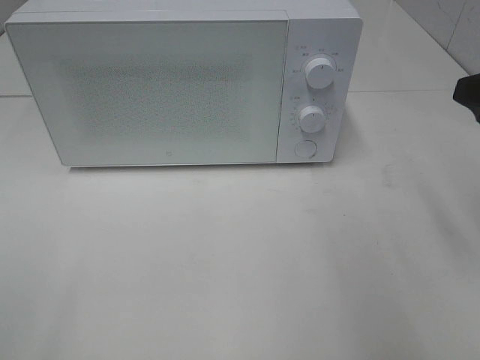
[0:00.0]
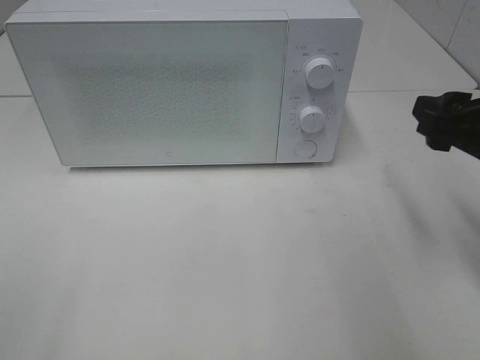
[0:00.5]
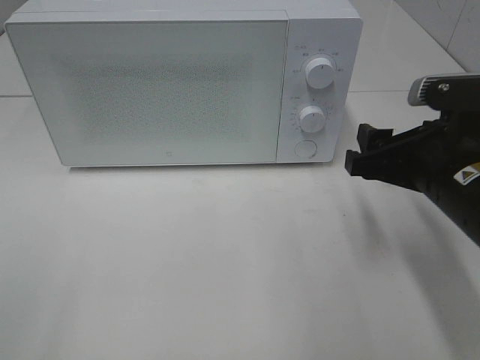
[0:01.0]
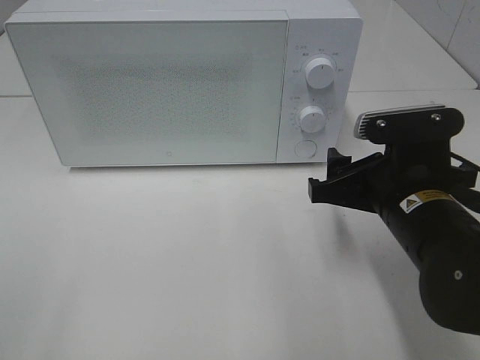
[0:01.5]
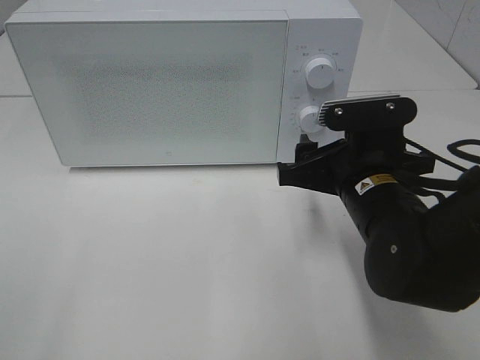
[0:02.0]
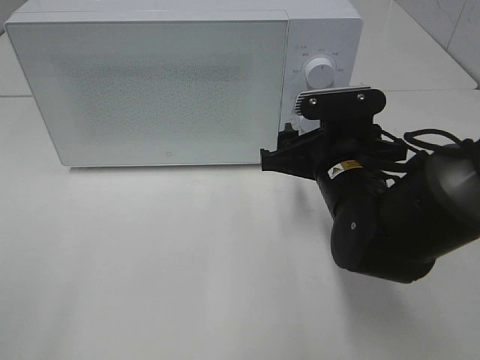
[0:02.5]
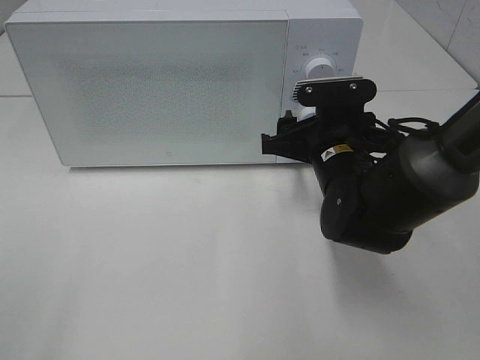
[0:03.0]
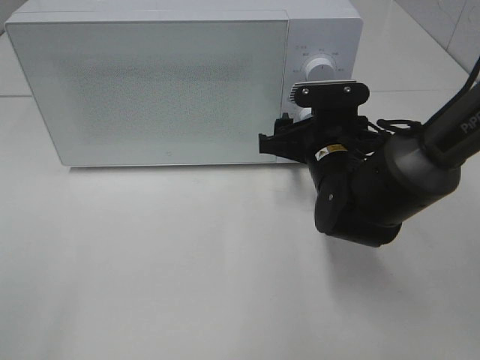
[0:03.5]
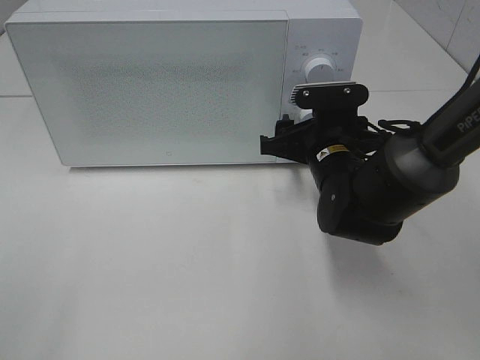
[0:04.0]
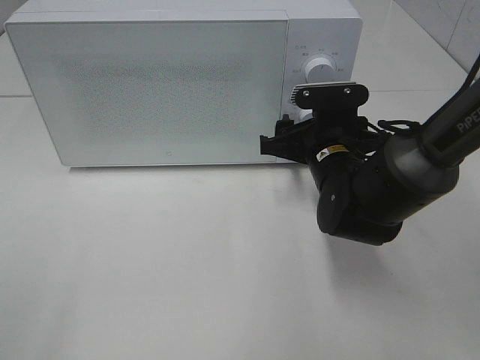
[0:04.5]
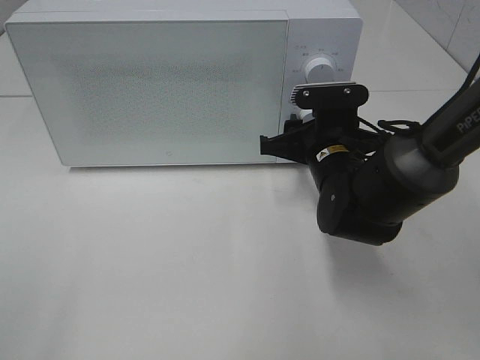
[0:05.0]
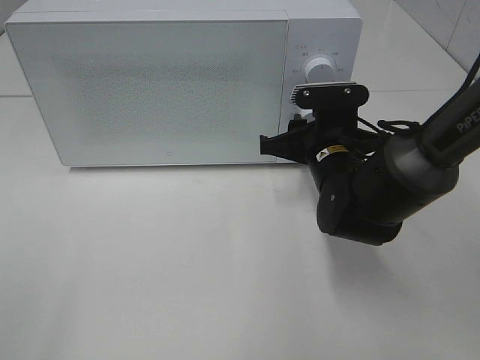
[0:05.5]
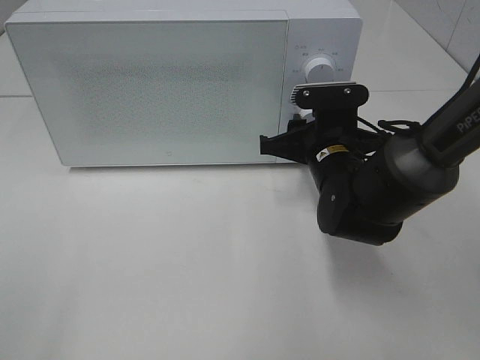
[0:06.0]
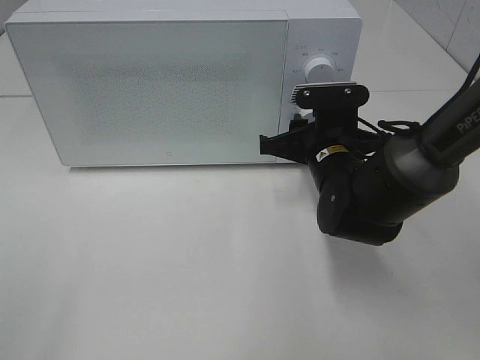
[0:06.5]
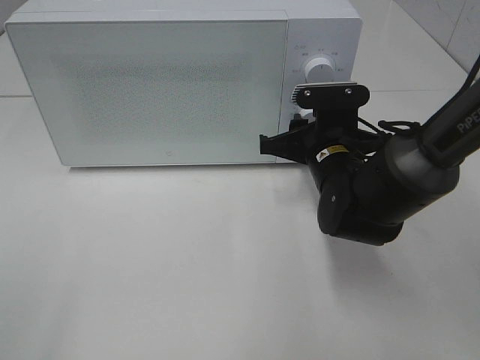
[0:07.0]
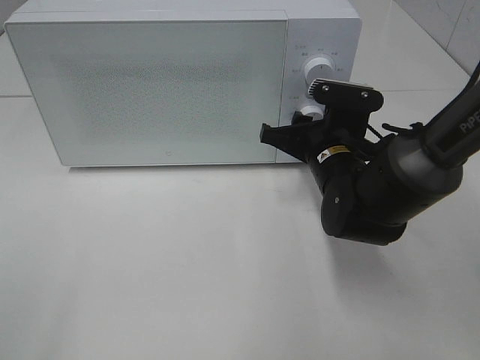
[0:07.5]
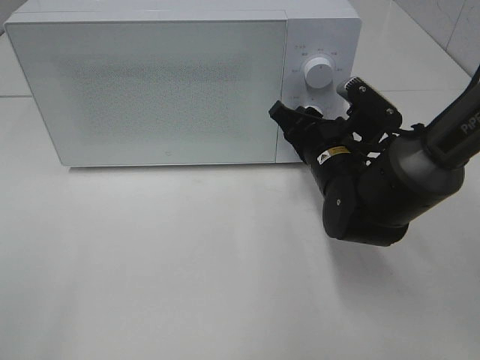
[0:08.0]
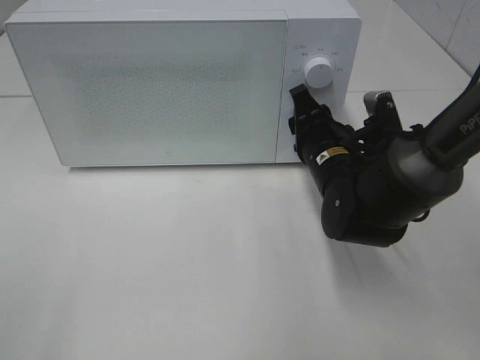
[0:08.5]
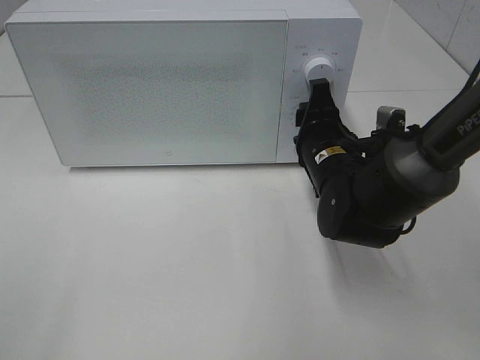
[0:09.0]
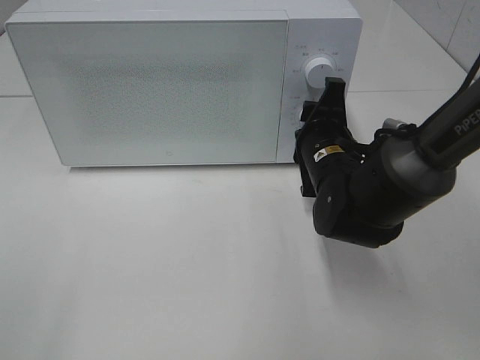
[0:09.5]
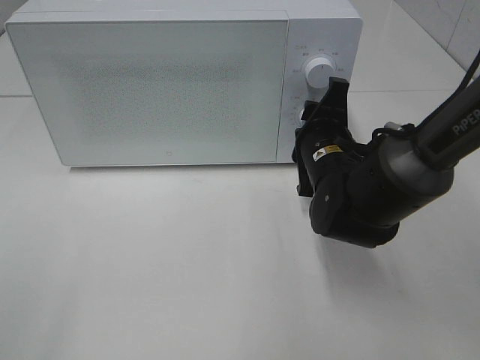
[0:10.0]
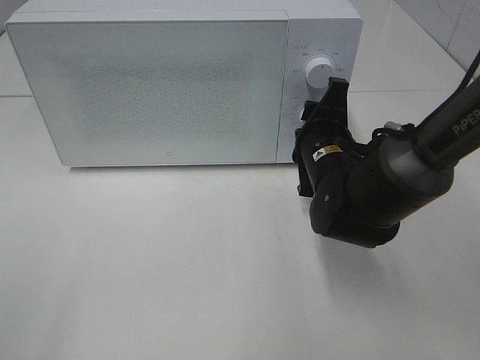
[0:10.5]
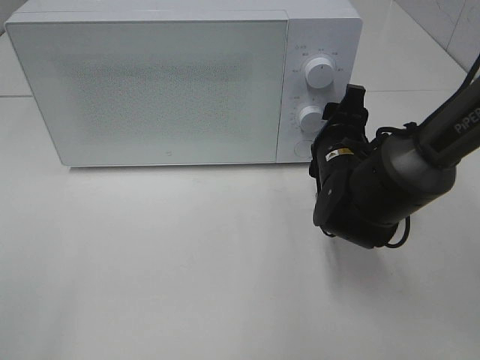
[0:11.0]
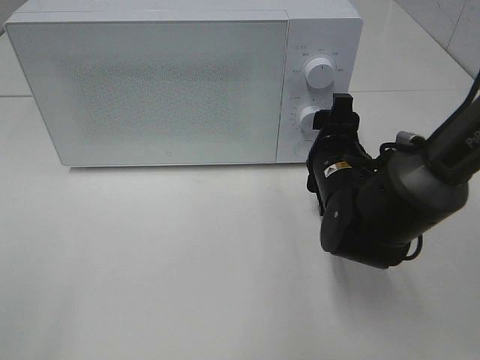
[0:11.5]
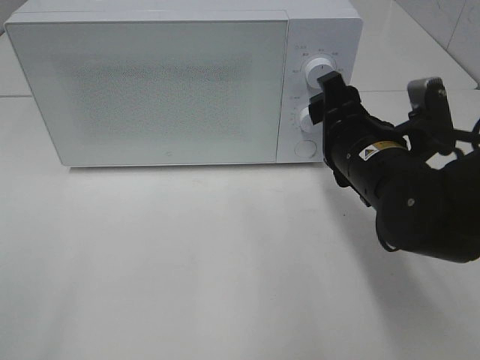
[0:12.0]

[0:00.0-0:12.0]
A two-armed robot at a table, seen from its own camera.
Task of the whole recording: Heat the burger.
Step, 0:00.0 to 0:10.5: Right hand: twist timer button.
0:00.0 to 0:02.0: The right gripper shifts roughly 20 cm to the left and downward.
0:02.0 to 0:04.0: The right gripper shifts about 10 cm forward.
0:04.0 to 0:06.0: Neither gripper changes place.
0:10.0 to 0:12.0: The right gripper heads backward, covering approximately 5 cm.

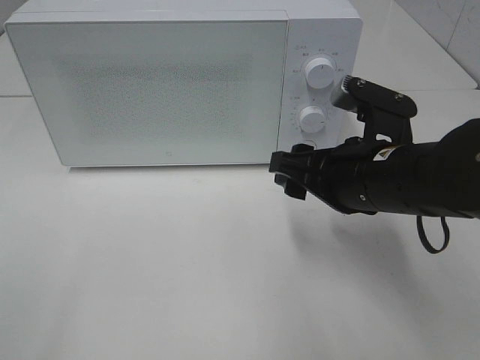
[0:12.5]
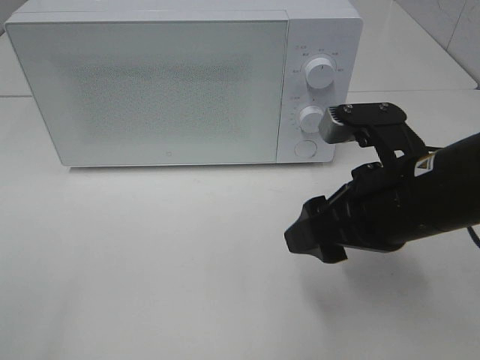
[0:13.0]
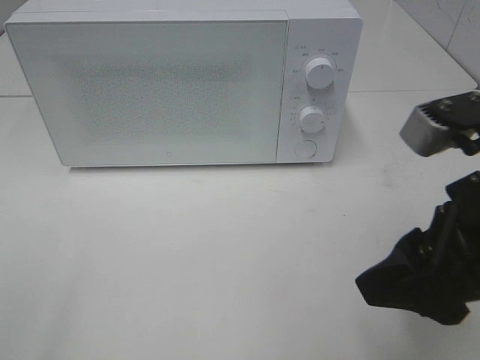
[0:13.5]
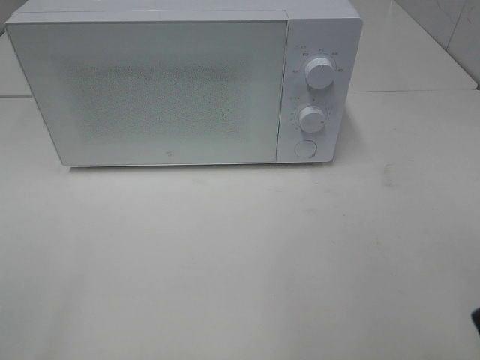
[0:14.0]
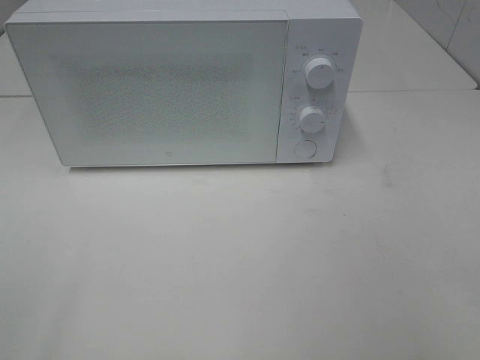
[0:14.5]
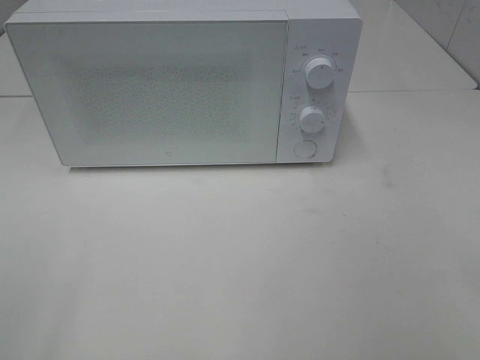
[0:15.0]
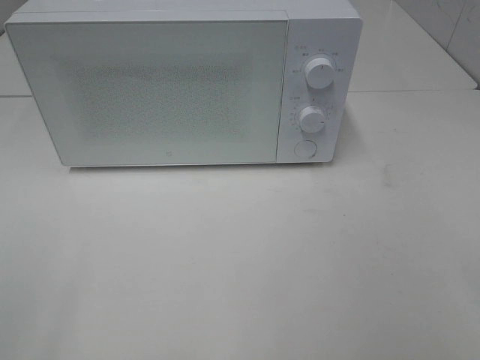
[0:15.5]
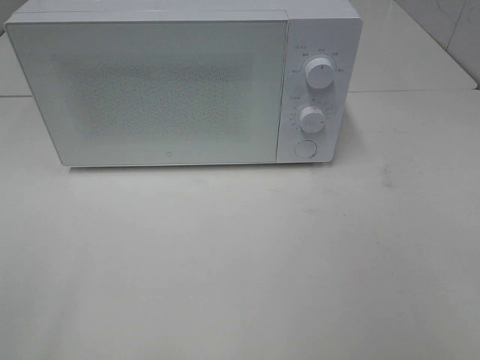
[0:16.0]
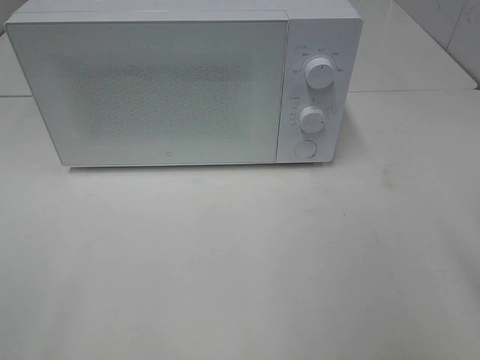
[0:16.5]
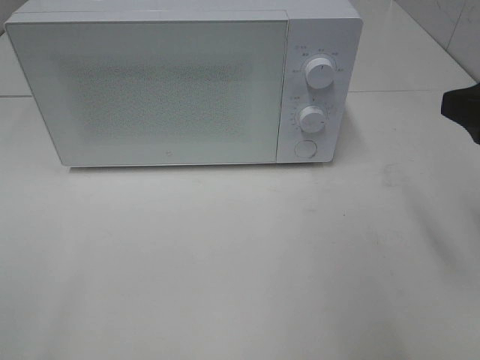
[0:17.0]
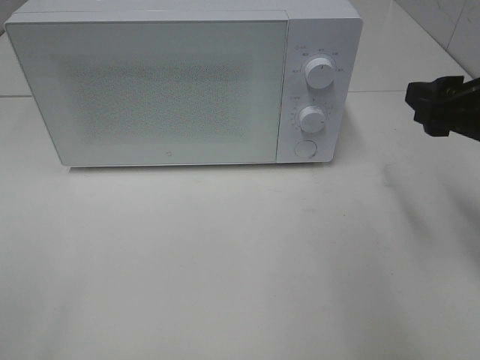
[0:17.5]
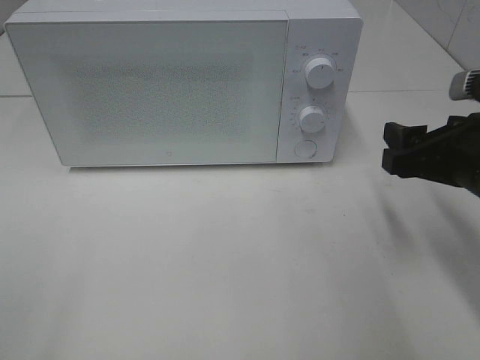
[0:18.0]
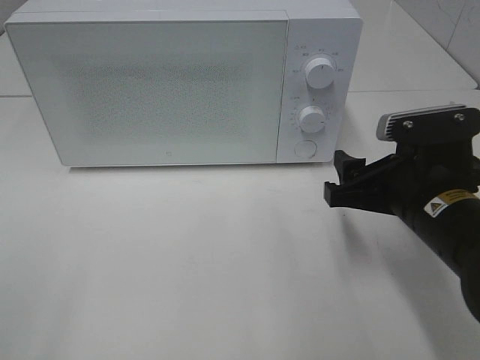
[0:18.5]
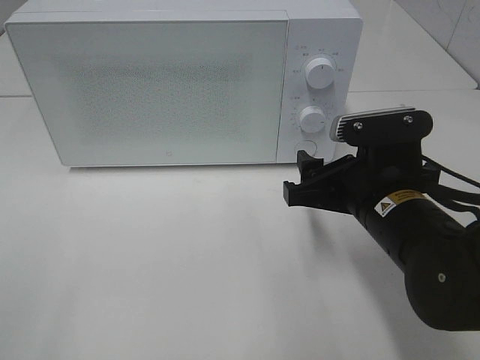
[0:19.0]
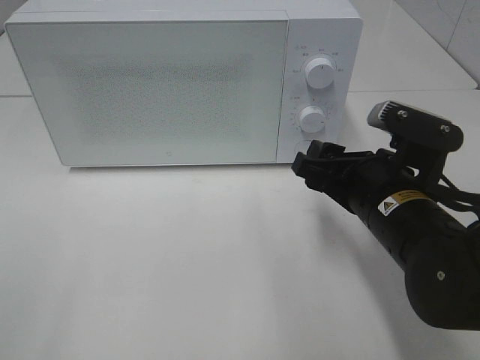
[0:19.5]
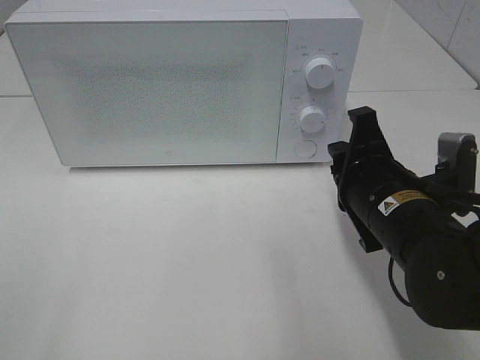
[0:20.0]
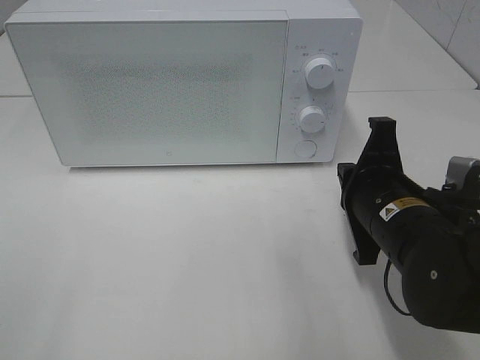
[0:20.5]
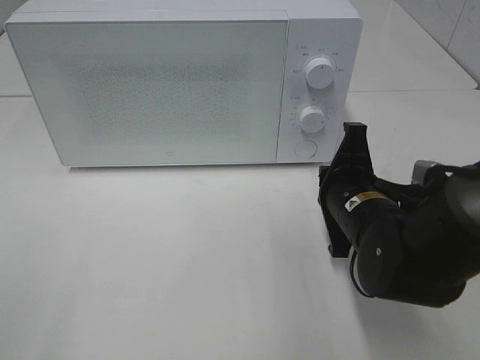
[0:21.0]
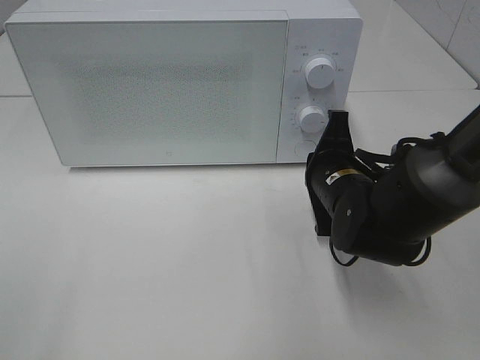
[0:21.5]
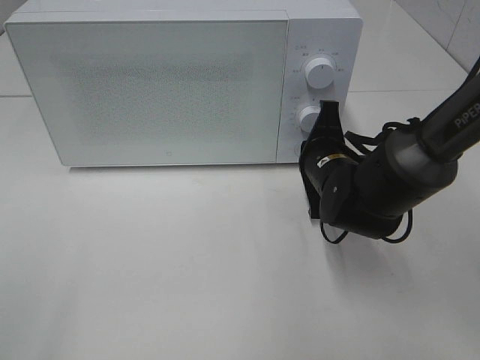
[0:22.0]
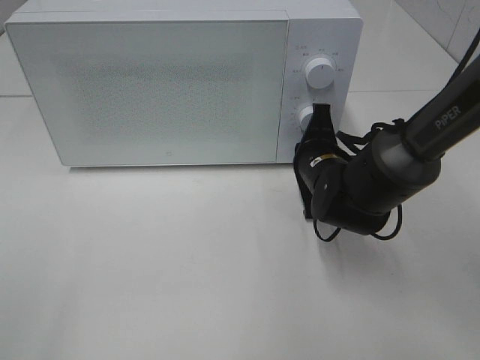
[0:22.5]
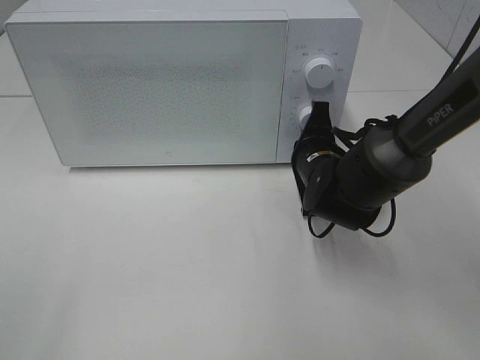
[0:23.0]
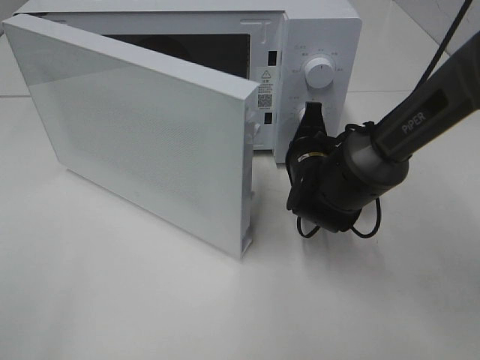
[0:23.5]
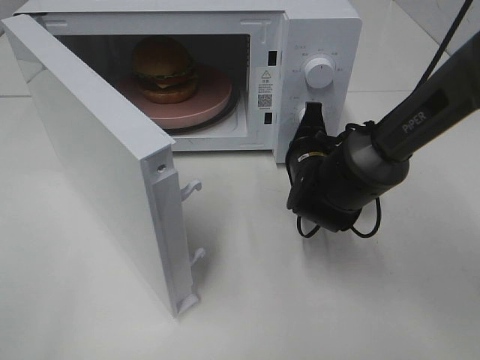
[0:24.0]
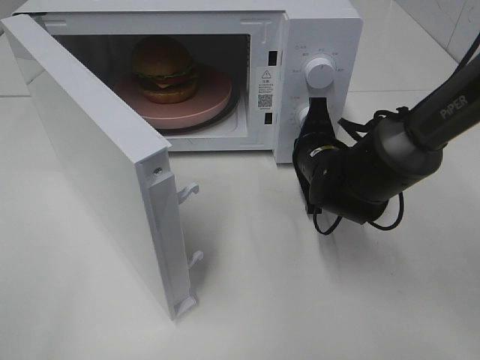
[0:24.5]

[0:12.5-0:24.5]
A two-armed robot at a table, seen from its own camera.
Task of the whole recording: Heat the burger.
0:12.5 to 0:14.5: The right gripper is displaced backward, to the right and upward by some 30 cm.
0:16.5 to 0:18.5: The right gripper goes some 20 cm downward, forward and to the left.
0:18.5 to 0:20.5: The right gripper closes its fingers.
0:20.5 to 0:22.5: The right gripper shifts some 10 cm forward.

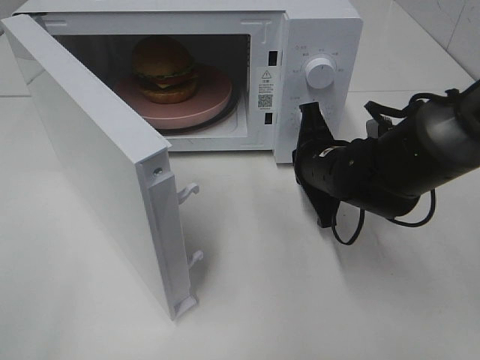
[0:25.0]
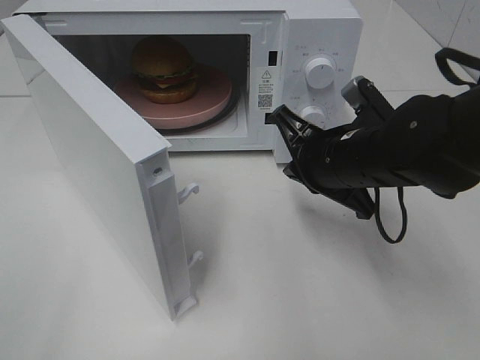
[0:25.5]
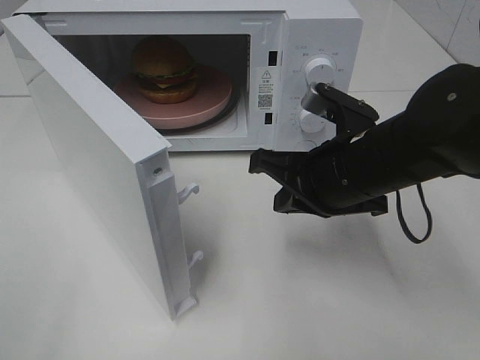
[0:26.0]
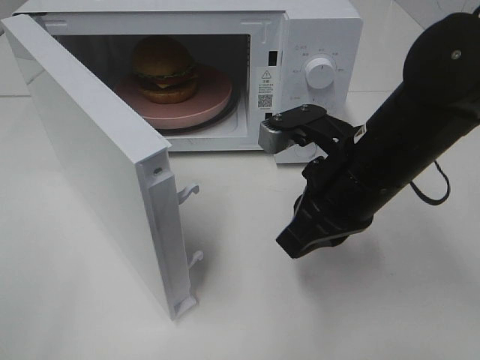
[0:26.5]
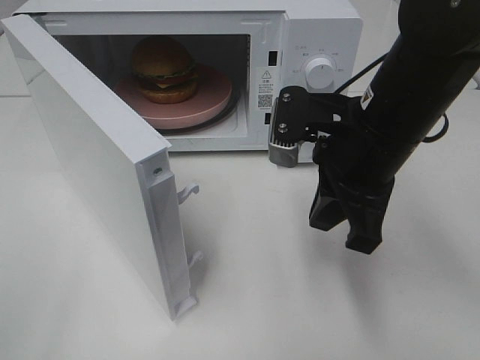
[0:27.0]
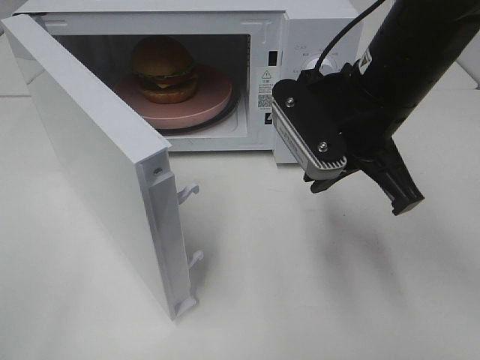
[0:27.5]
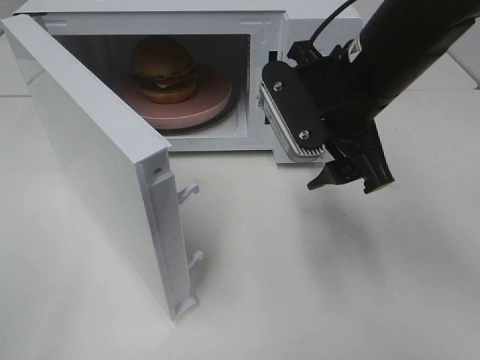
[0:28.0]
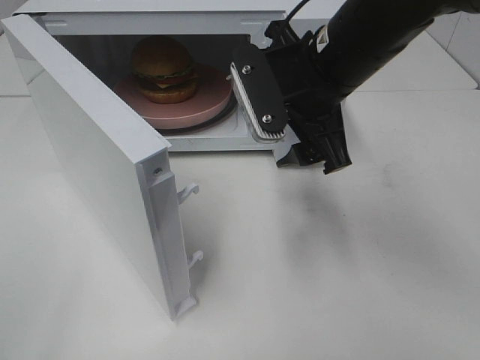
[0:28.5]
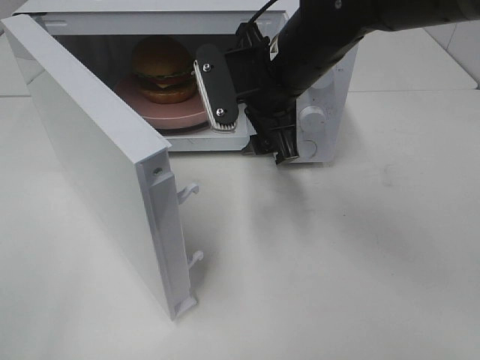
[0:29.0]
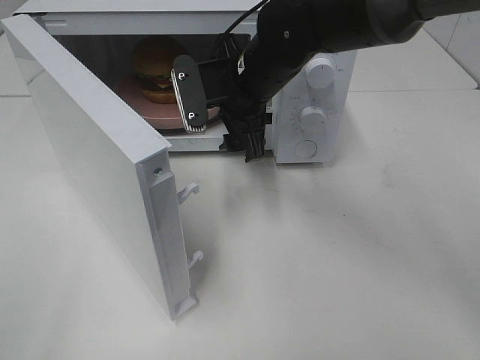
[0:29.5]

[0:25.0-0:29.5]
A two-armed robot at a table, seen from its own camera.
Task of the whole recording: Heat the burger.
0:25.0 to 0:27.0: The right gripper goes roughly 15 cm upward and backward.
0:27.0 to 0:29.5: The right gripper heads forward and to the left, covering some 15 cm, and opens.
